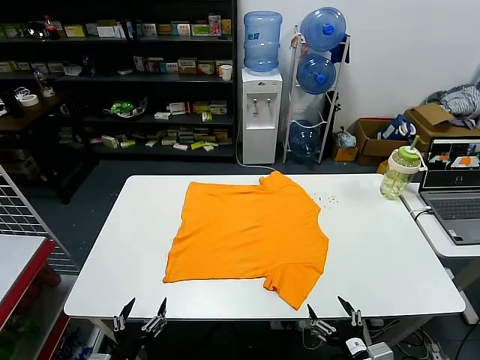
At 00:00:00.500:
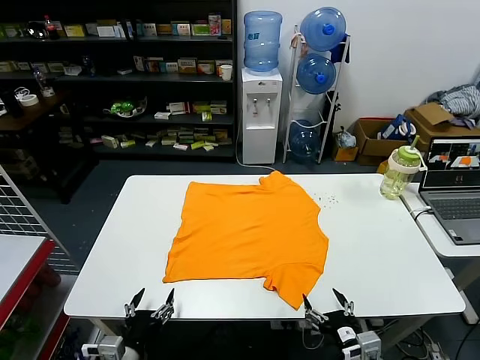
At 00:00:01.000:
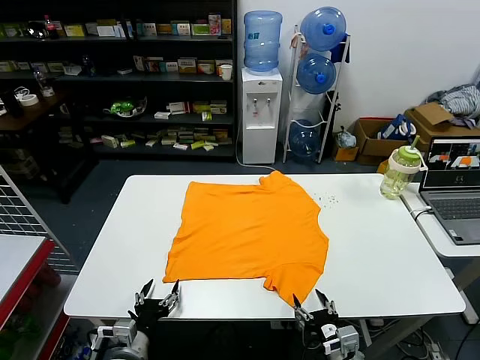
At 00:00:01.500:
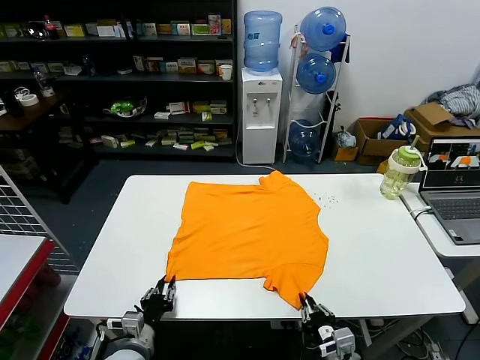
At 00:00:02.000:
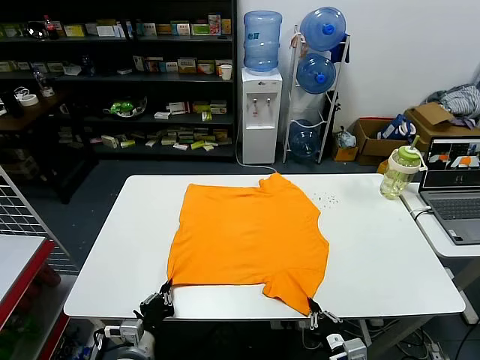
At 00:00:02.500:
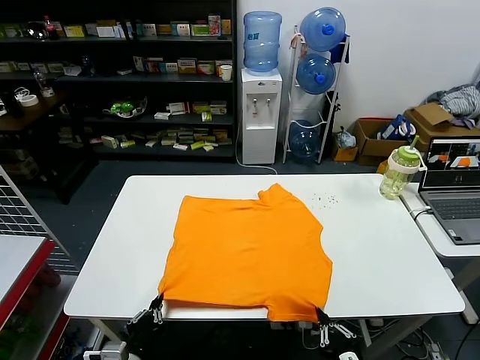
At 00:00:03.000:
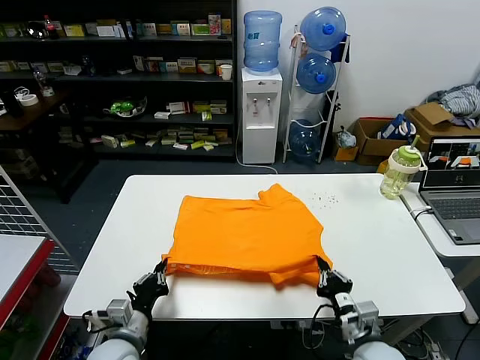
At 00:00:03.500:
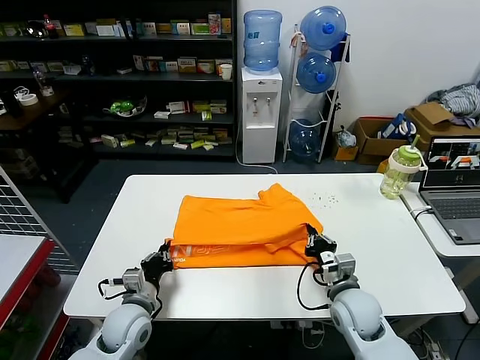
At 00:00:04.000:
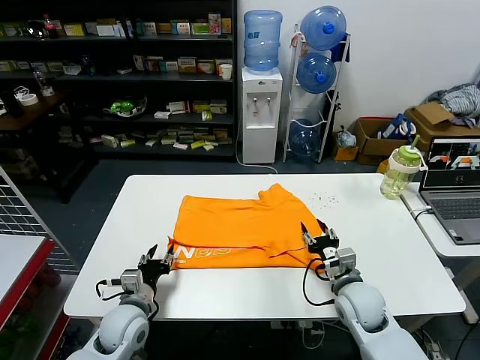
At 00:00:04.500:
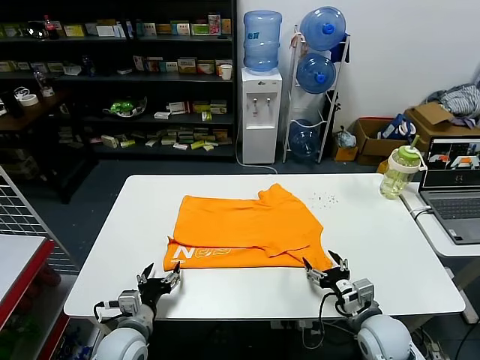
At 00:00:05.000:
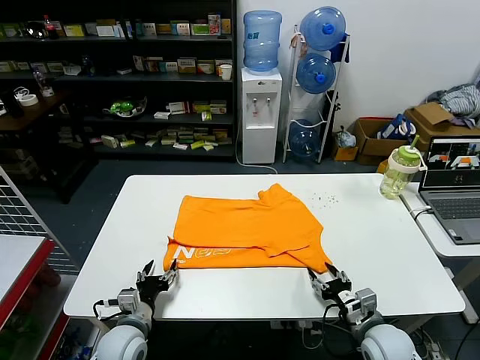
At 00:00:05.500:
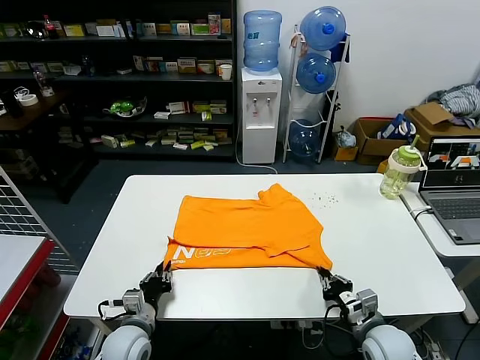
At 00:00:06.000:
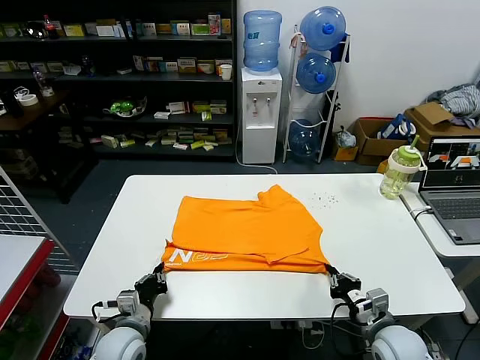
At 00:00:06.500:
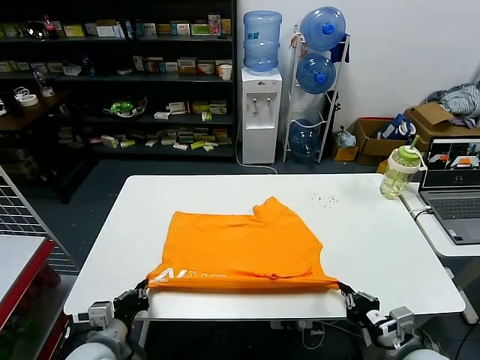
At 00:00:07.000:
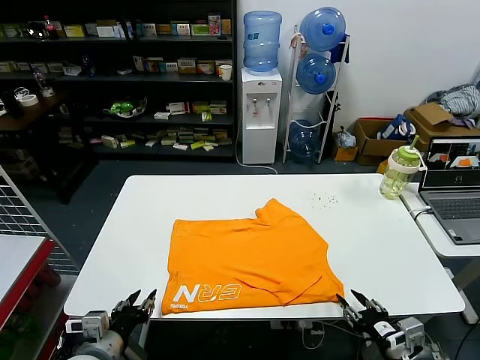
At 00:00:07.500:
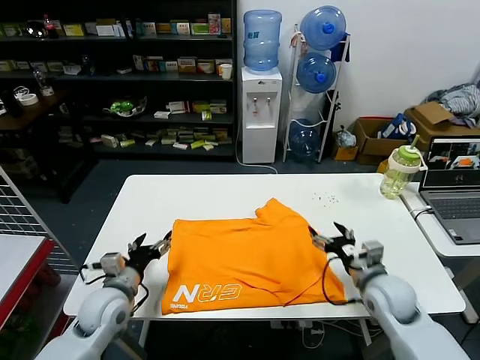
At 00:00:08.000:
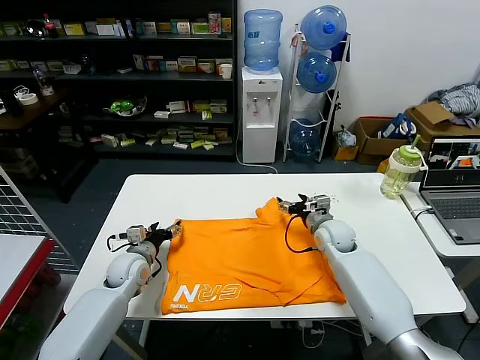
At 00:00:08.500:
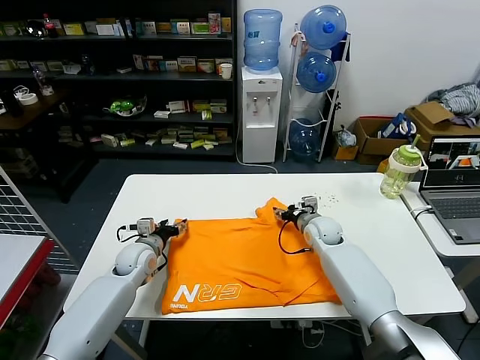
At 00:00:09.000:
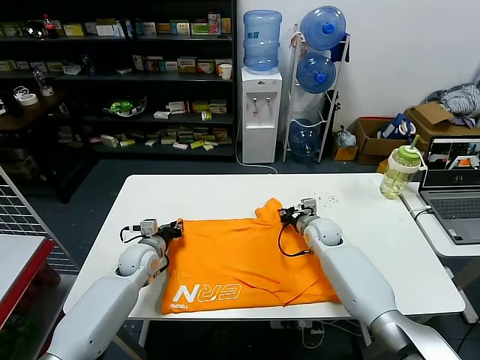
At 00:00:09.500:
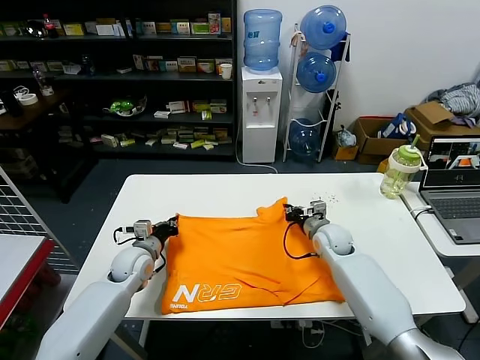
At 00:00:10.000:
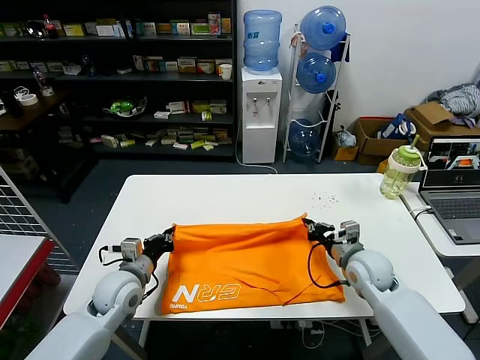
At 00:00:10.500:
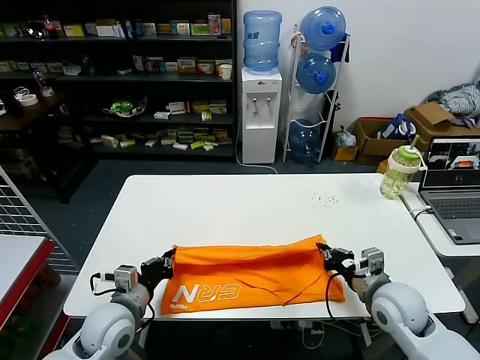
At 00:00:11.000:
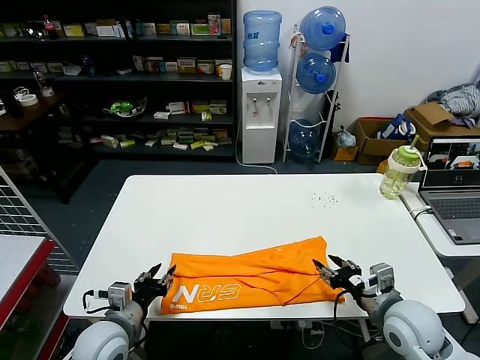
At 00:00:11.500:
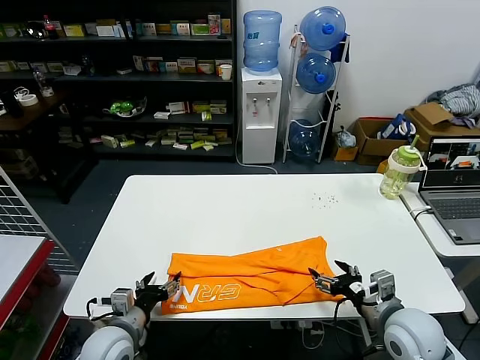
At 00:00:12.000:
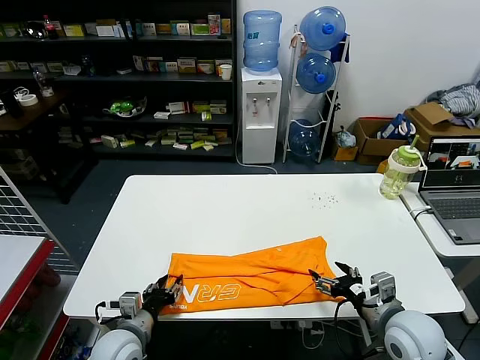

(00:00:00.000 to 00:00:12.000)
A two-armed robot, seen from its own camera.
Task of the whole recording: fold and organize the clothes.
Step, 00:00:00.000 - 00:00:01.500: use both grippers simultaneously to clamp the lower edge of the clothing fabric.
Step, 00:00:02.000 - 00:00:03.500: use both grippers to drag the lower edge of the fabric forward and fold it over the upper edge.
Step, 00:00:04.000 - 00:00:06.500: Drag the clothes downward with both gripper.
Step, 00:00:07.000 - 00:00:09.000: use both grippers simultaneously to clamp the upper edge of the clothing fabric.
Step, 00:00:09.500 - 00:00:10.500: use both grippers to drag the upper edge of the fabric backward and fold it over the lower edge.
00:00:02.000 - 00:00:04.000: The left gripper goes approximately 10 cm forward, and opens its fingers, while the right gripper heads forward, covering roughly 20 cm, and opens its fingers.
00:00:04.000 - 00:00:06.000: The left gripper closes up. The right gripper goes about 10 cm backward and to the right, and closes its fingers.
00:00:06.000 - 00:00:08.000: The left gripper travels forward by about 15 cm, and opens up. Meanwhile the right gripper shifts approximately 25 cm forward, and opens up.
00:00:08.000 - 00:00:10.000: The right gripper moves backward and to the right, approximately 15 cm, and closes, while the left gripper moves backward, about 5 cm, and closes up.
00:00:10.000 - 00:00:12.000: Both grippers travel together backward, some 15 cm. The right gripper opens up; the left gripper opens its fingers.

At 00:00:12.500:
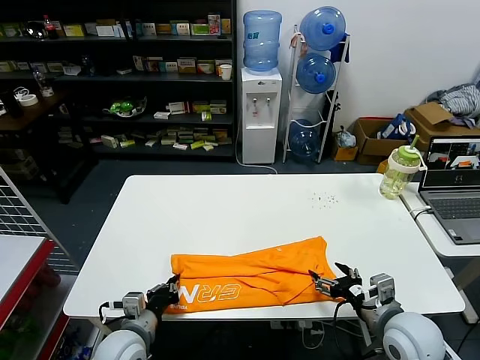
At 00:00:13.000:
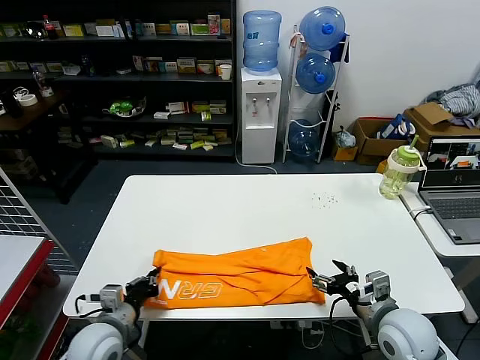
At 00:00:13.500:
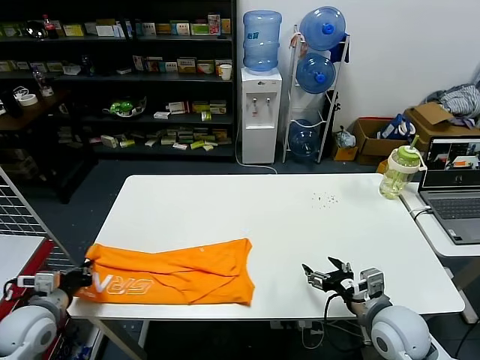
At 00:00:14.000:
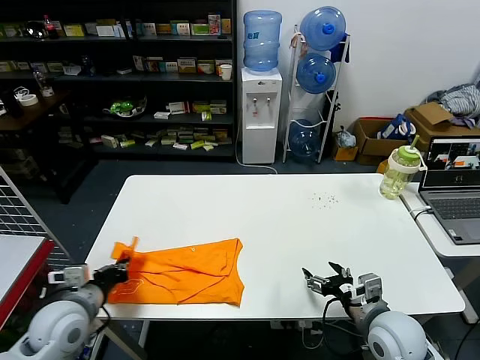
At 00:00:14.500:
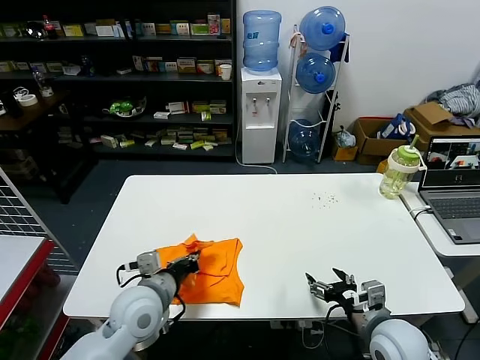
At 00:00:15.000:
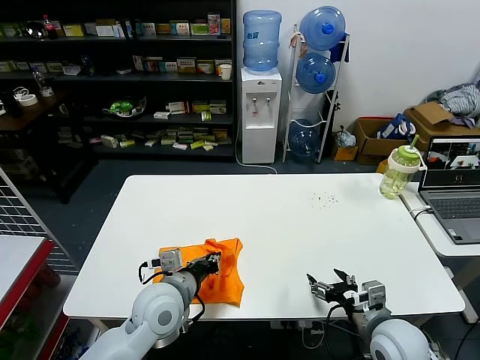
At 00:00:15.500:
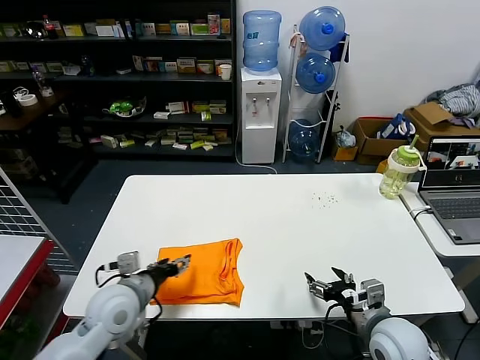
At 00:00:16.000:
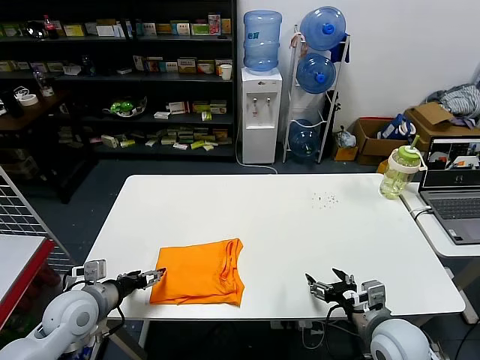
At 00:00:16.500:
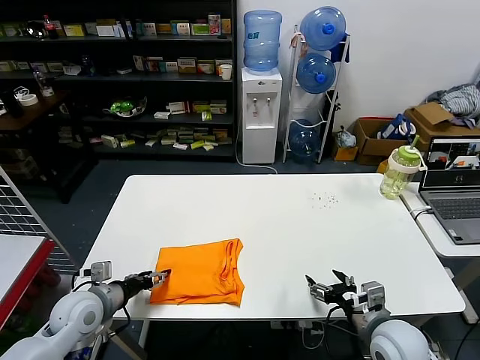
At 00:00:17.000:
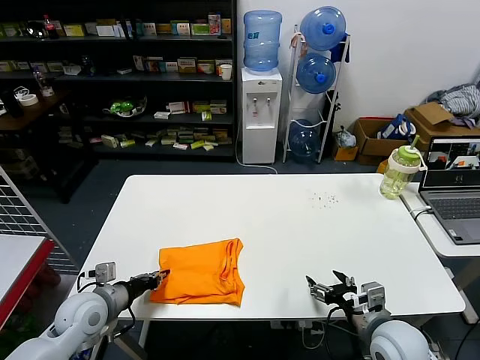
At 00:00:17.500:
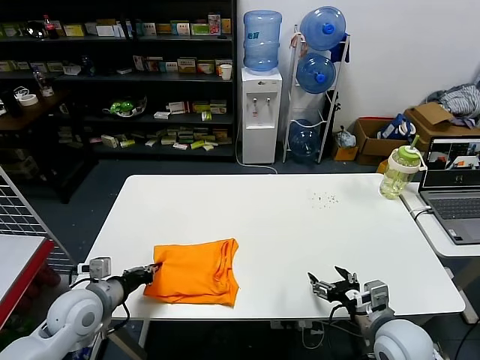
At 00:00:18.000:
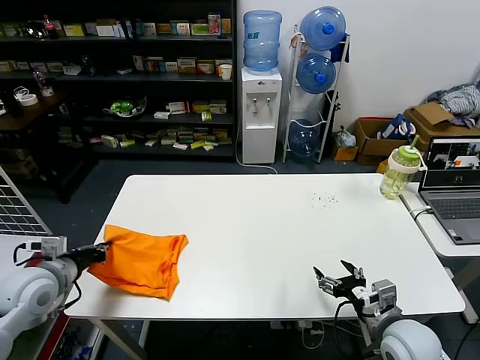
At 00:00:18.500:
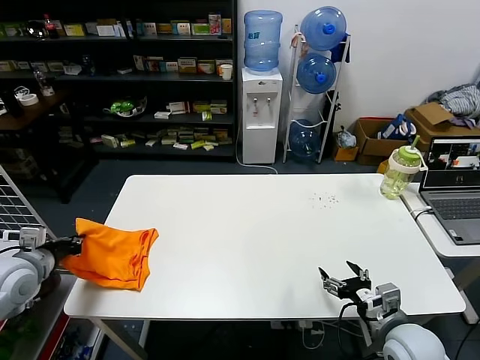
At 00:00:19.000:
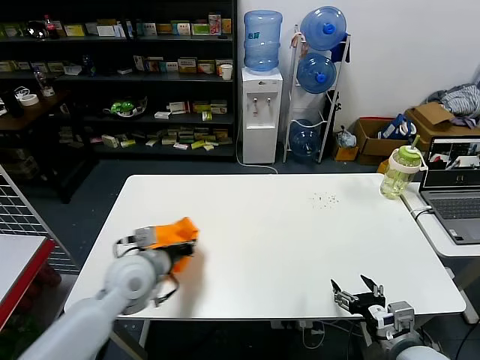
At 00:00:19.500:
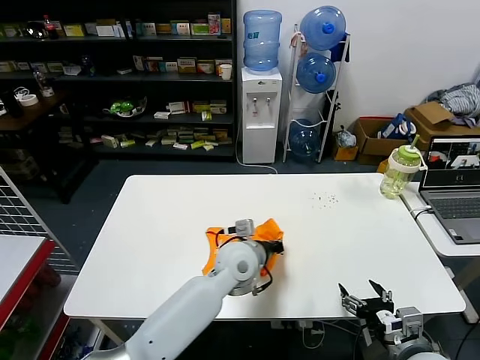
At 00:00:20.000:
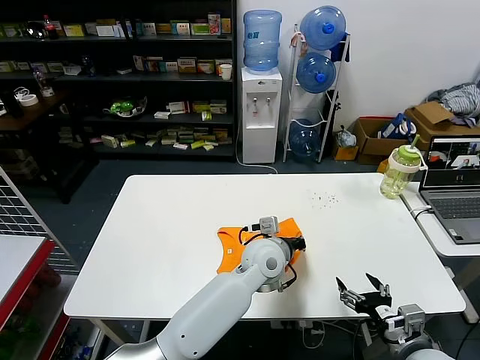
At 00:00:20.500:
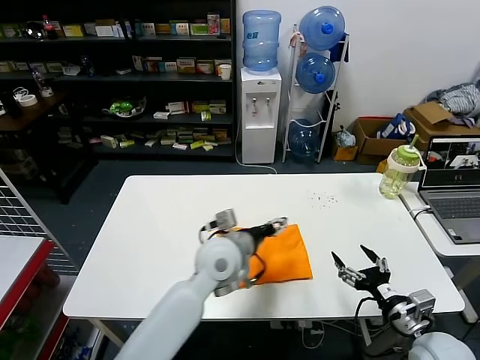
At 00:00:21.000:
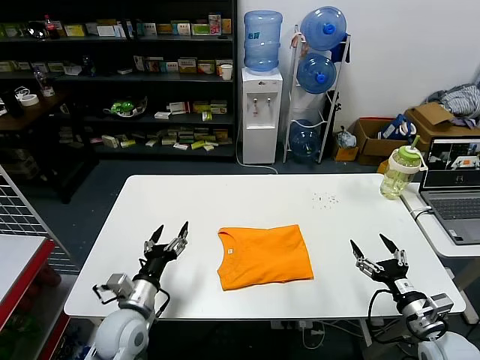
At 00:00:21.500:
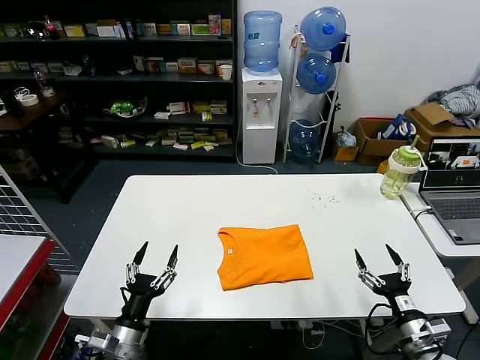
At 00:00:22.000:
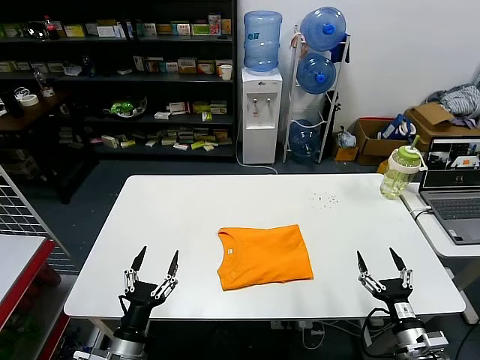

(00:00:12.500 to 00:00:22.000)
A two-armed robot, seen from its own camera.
Task of the whole recording: fold and organize the clothes.
Step, 00:00:13.000 - 00:00:15.000: use the left gripper to drag the left edge of the fabric to the left and folds it over the right edge.
Step, 00:00:15.500 - 00:00:20.000: Flip the folded clothes over with left gripper.
00:00:12.500 - 00:00:14.500: The left gripper moves upward, about 10 cm, and reaches roughly 15 cm to the left, then returns.
00:00:14.500 - 00:00:16.500: The left gripper travels to the left by roughly 15 cm, and opens.
00:00:16.500 - 00:00:18.000: The left gripper is displaced upward and to the left by about 10 cm, and closes.
00:00:18.000 - 00:00:20.000: The left gripper travels to the right by about 40 cm. Meanwhile the right gripper shifts by approximately 5 cm.
00:00:20.000 - 00:00:22.000: The left gripper travels to the left and backward by roughly 35 cm, and opens its fingers. The right gripper moves downward, about 5 cm.
